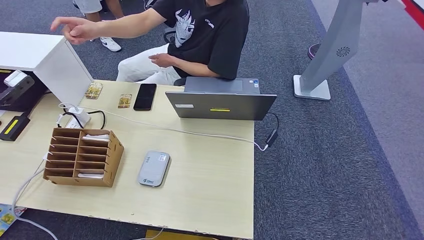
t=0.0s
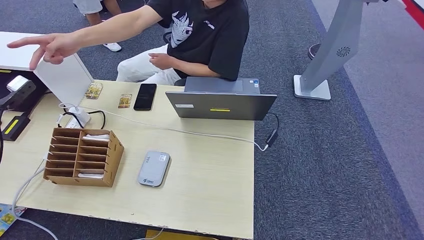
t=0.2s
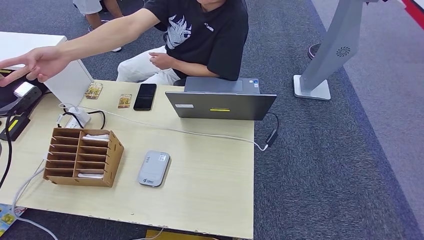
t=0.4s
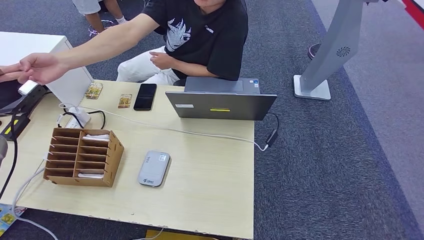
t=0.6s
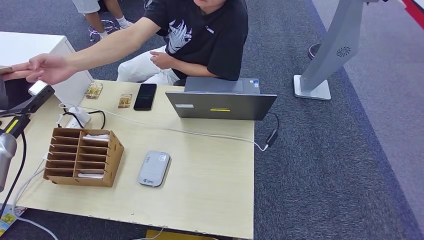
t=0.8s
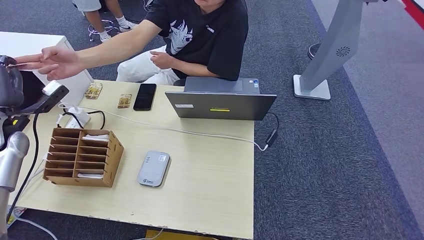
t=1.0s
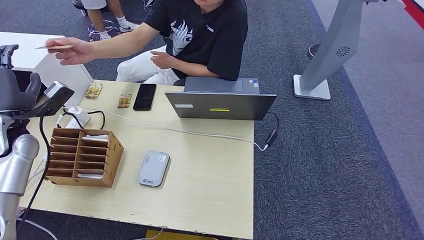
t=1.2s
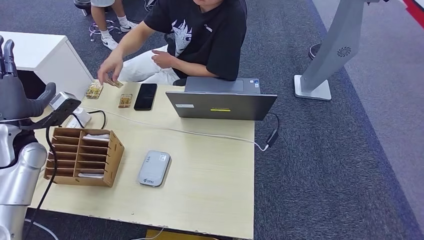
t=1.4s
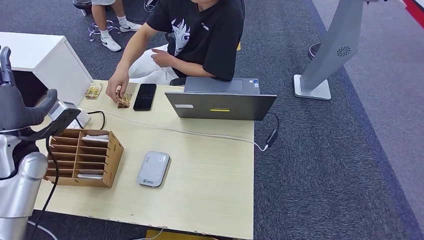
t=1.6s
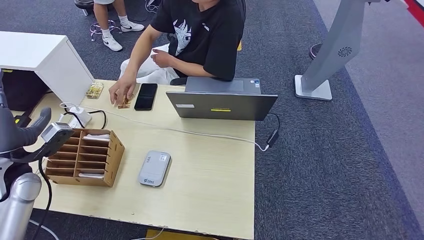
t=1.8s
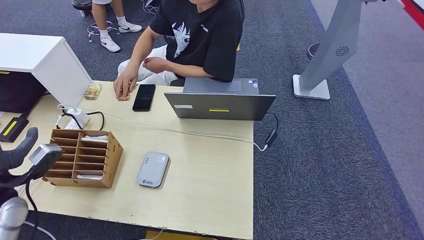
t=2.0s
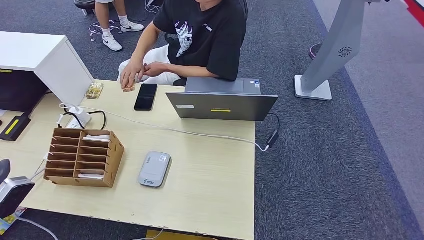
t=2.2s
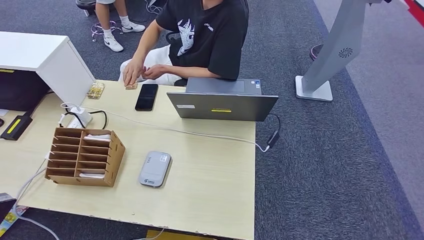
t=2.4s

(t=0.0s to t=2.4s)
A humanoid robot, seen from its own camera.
Step, t=0.0s - t=2.4s: Hand the room key to the person.
t=0.0s - t=1.2s: The left hand travels to the right and downward by some 10 cm.
t=1.2s - t=2.4s: The left hand shifts some 25 cm backward, while the right hand moves upward and backward, about 10 cm.

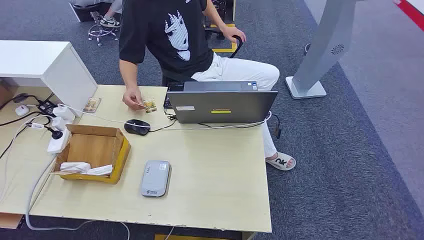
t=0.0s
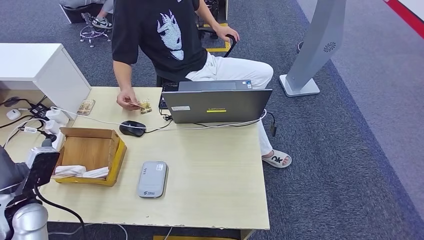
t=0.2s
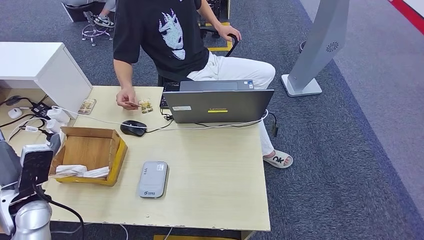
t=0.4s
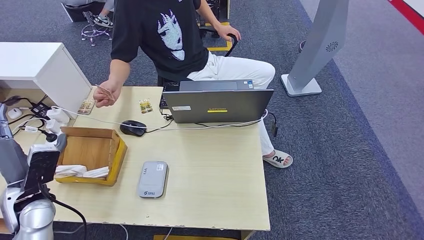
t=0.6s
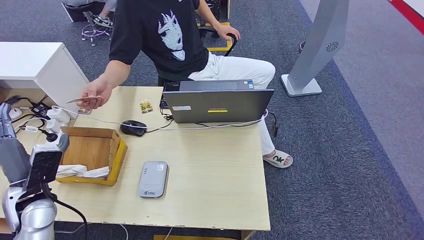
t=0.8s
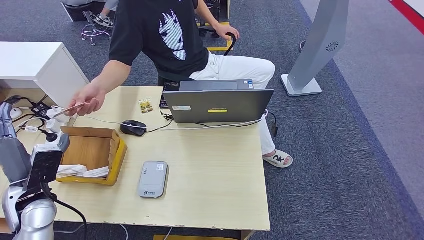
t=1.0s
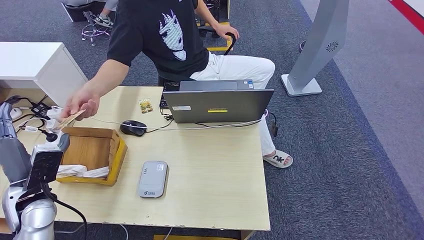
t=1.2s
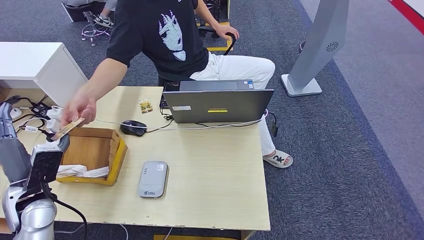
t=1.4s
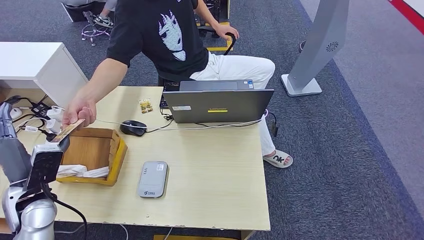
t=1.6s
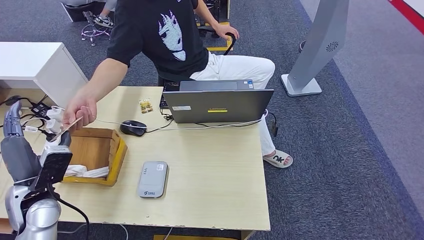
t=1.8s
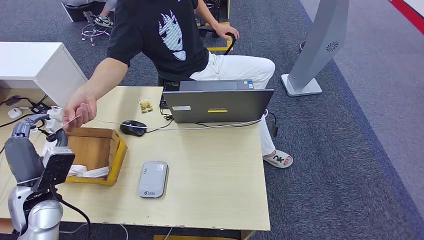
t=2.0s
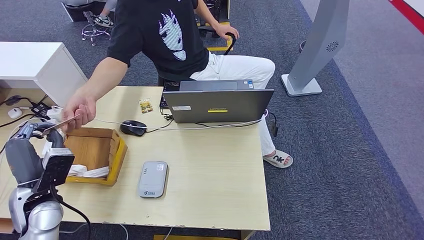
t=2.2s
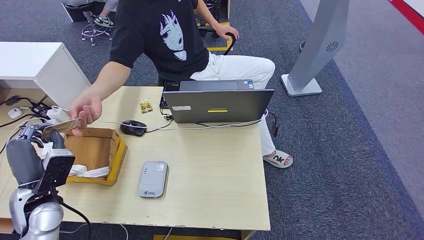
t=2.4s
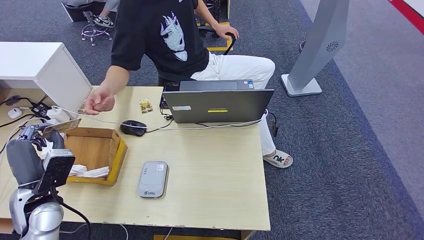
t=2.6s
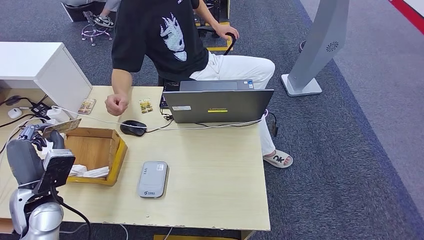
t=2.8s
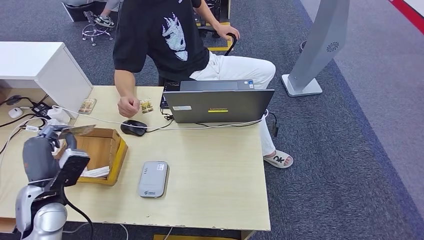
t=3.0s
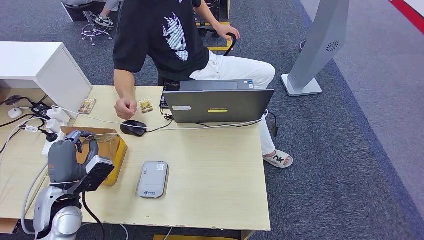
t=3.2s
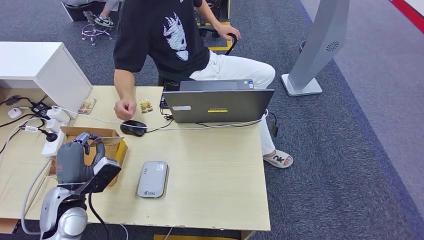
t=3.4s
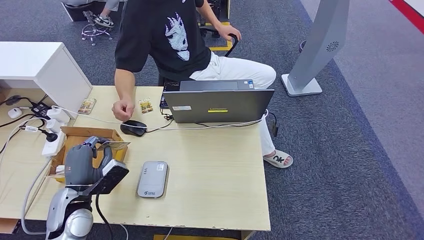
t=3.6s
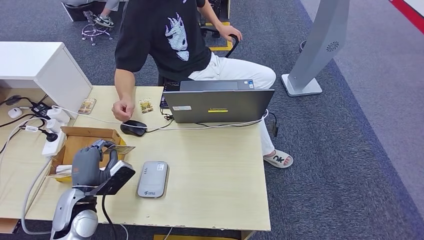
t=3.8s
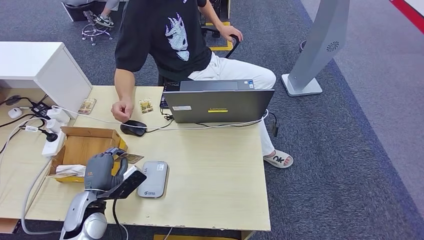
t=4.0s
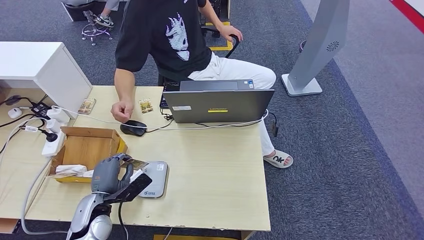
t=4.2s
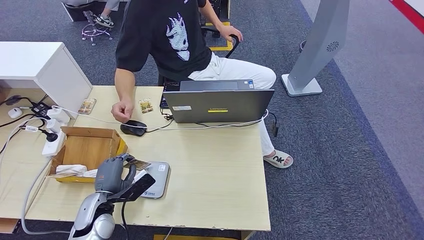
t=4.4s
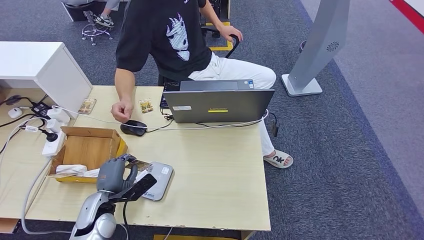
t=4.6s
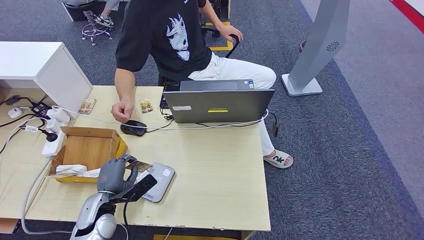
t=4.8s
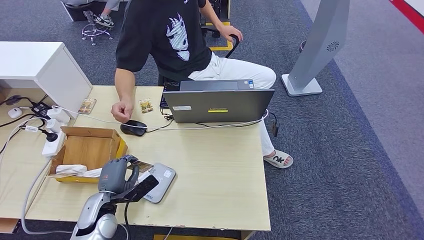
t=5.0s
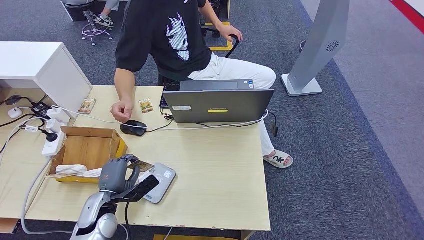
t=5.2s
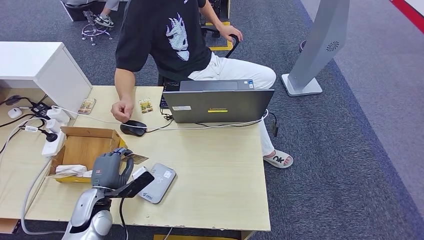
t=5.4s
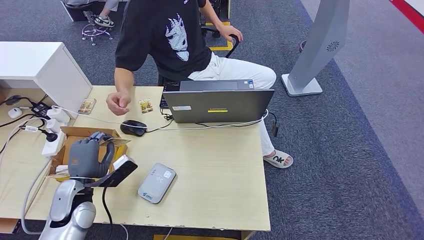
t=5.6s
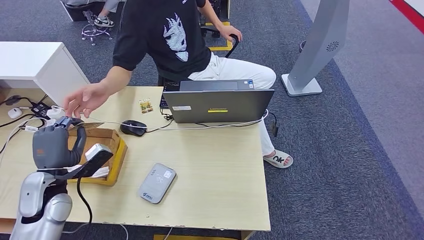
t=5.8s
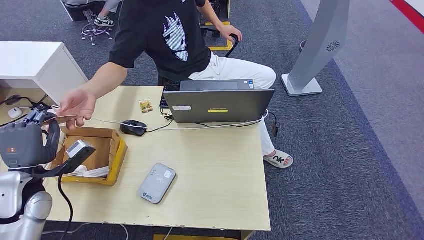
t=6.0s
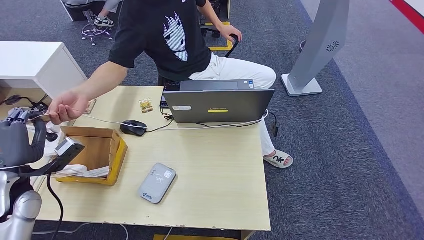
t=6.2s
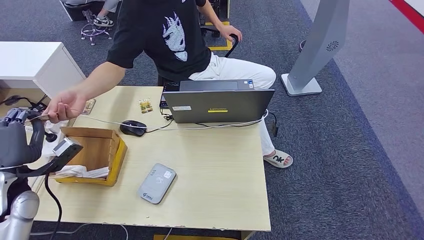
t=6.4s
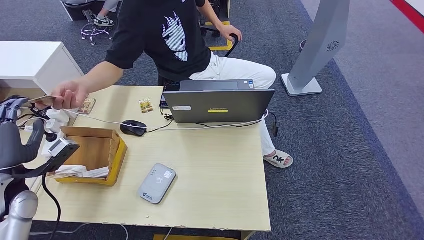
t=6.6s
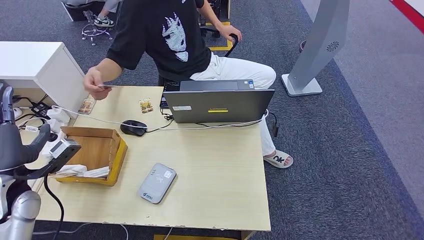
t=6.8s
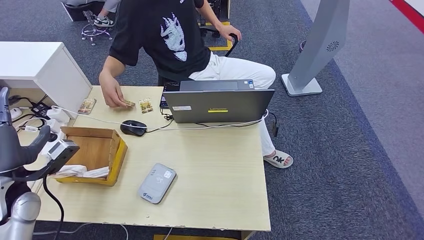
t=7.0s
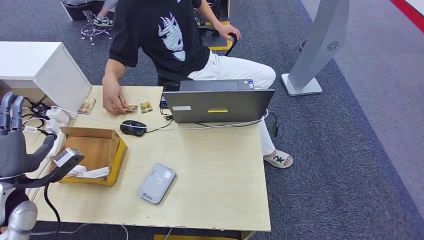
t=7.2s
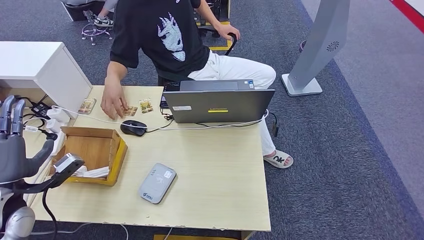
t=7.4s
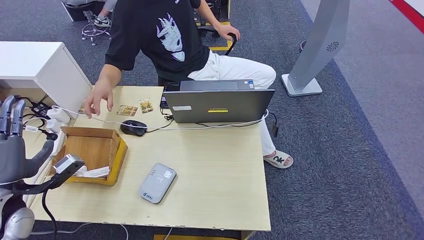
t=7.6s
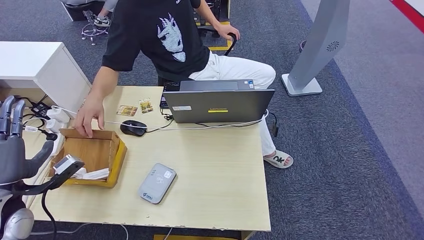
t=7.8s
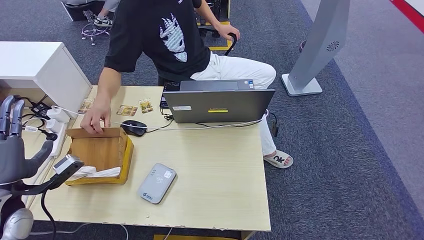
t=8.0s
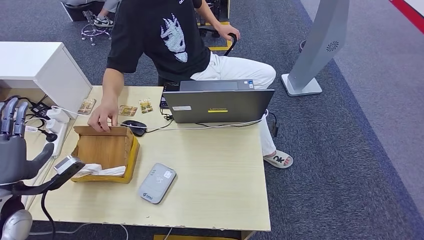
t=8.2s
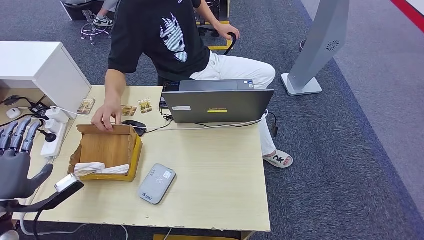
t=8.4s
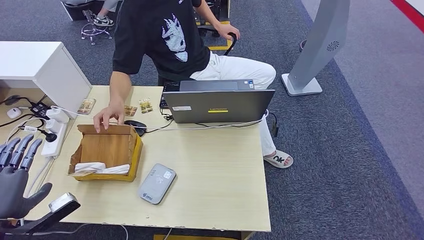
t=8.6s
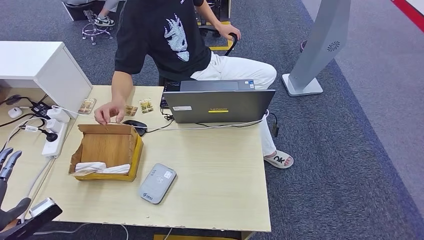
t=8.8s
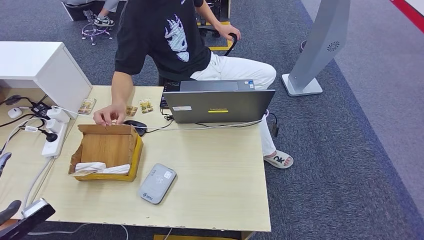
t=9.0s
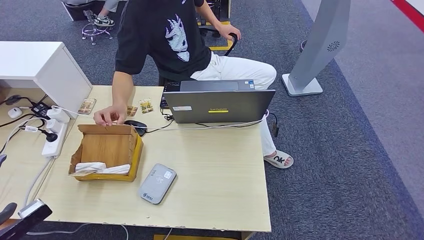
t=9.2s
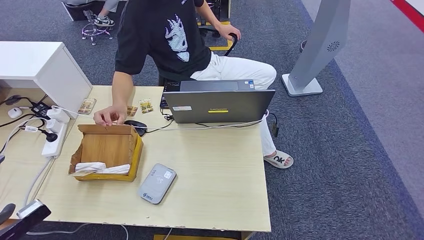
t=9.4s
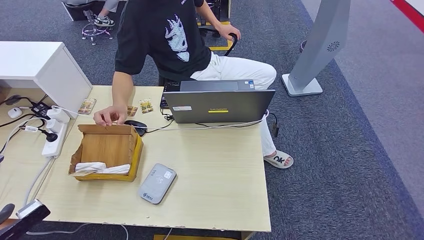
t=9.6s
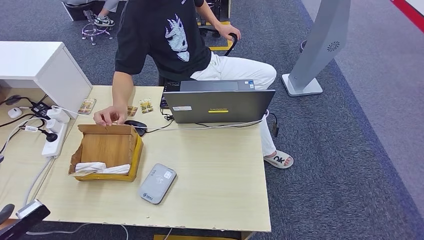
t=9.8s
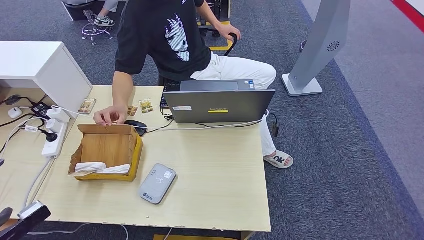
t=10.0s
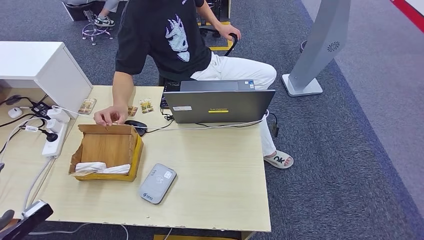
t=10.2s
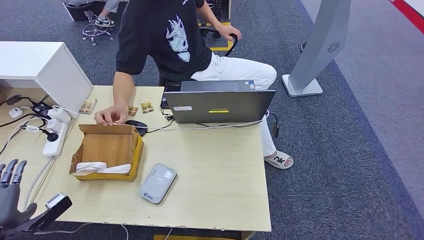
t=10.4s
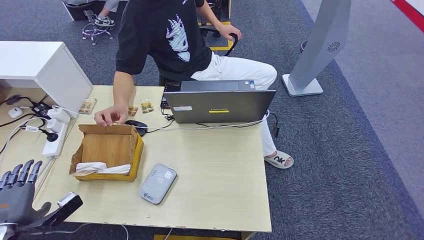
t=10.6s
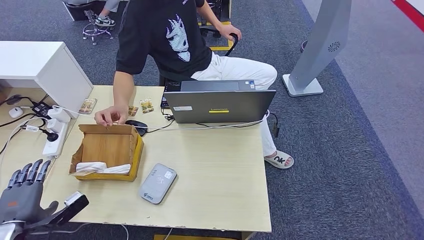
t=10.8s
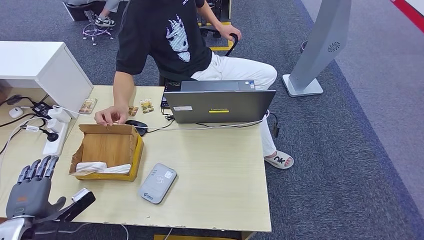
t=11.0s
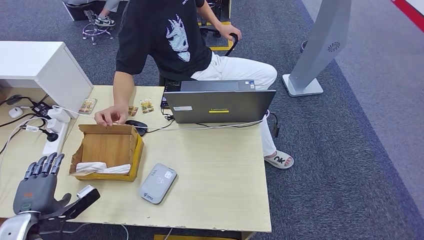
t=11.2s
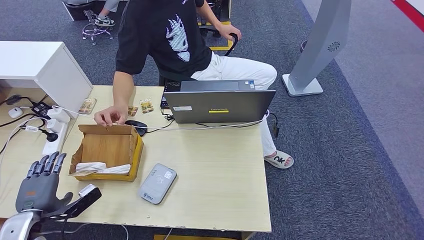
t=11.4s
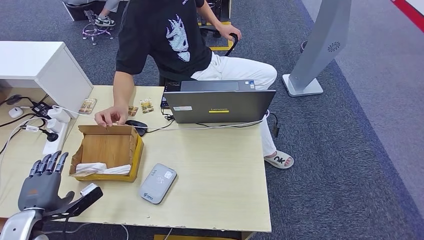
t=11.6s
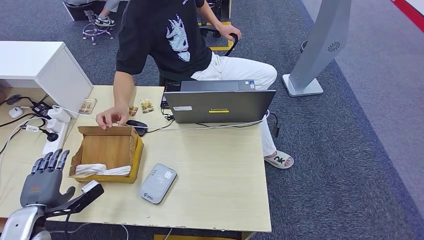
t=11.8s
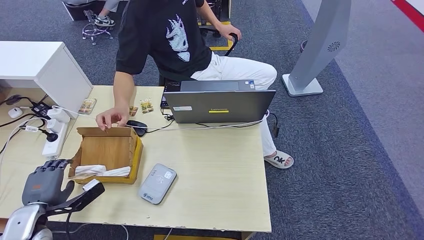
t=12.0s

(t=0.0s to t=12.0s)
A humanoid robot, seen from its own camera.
Step, t=0.0s - t=2.6s: Take the ID card from the person's hand.
Step, t=3.6s - t=5.6s: Place the ID card on the card reader.
Step, t=6.2s - t=7.0s: Hand the ID card to the person.
Step, t=7.4s - t=11.8s: Pick up the room key from the key card box.
t=1.6s - t=3.0s: There are only small adjustments of the hands.
t=3.0s - t=4.4s: The left hand shifts roughly 10 cm downward and to the right.
t=4.4s - t=6.0s: The left hand is displaced upward and to the left by some 15 cm.
t=6.0s - t=7.6s: The hands stay close to where they were, moving slightly.
t=7.6s - t=9.0s: The left hand is displaced backward by roughly 10 cm.
t=9.0s - t=10.4s: The left hand heads downward, covering about 5 cm.
t=10.4s - t=12.0s: The left hand is displaced forward by roughly 5 cm.

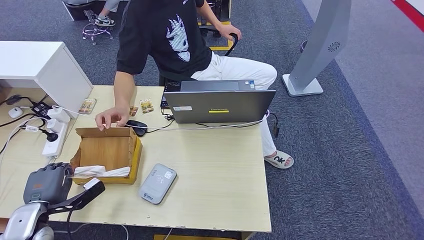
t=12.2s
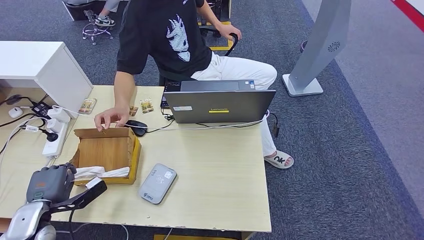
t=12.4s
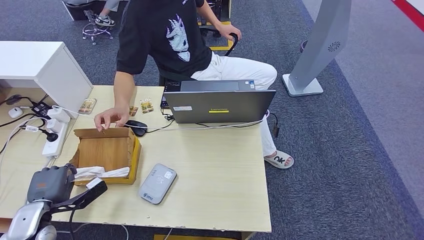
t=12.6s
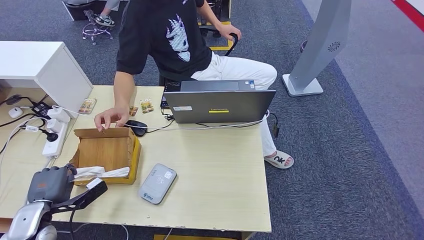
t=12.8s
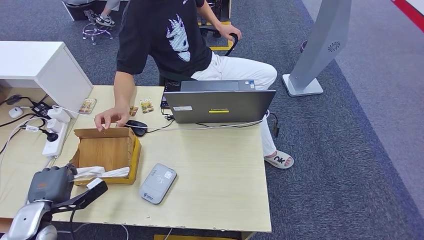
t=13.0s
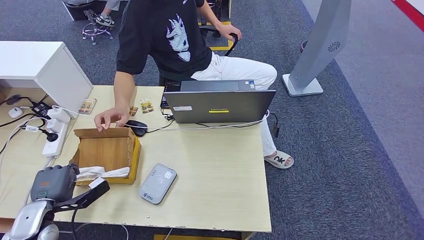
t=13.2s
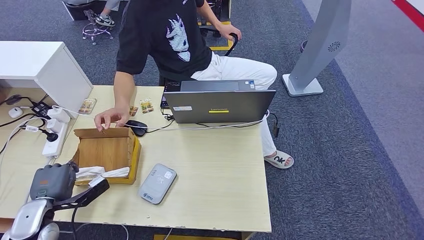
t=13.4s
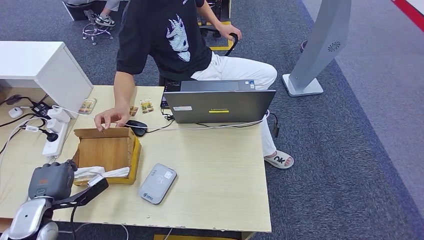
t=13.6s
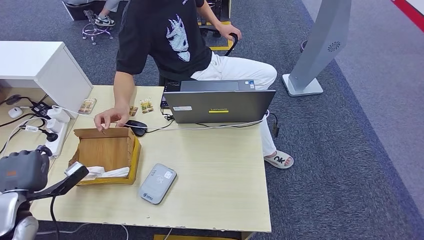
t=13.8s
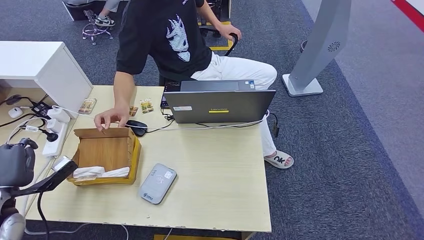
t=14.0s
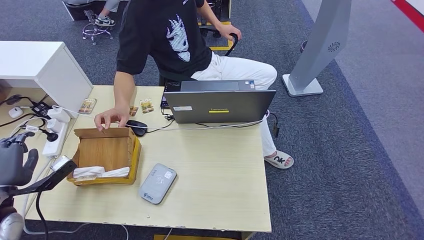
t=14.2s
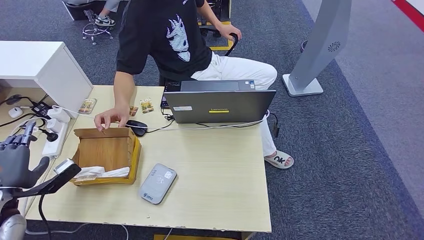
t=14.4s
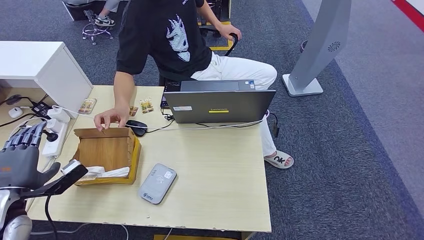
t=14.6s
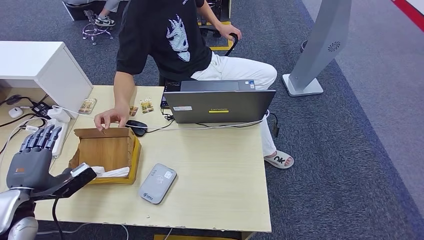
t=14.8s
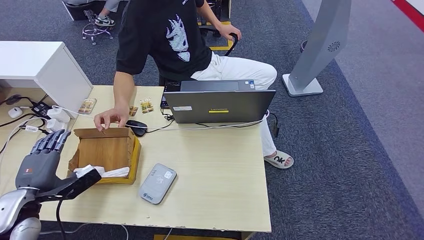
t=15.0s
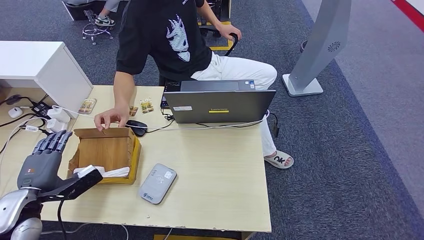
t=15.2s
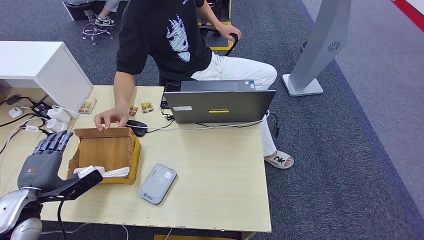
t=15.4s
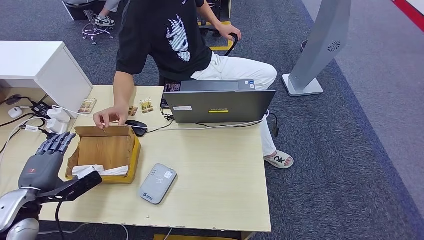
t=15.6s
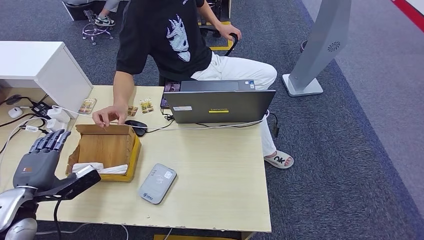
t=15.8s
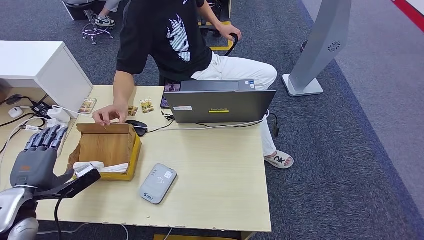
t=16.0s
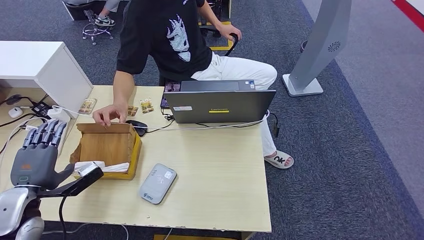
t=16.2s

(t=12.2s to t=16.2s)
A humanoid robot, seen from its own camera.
t=12.2s - t=13.6s: Neither hand changes place.
t=13.6s - t=14.8s: The left hand heads upward, covering approximately 5 cm.
t=14.8s - t=16.2s: There are only small adjustments of the hands.
